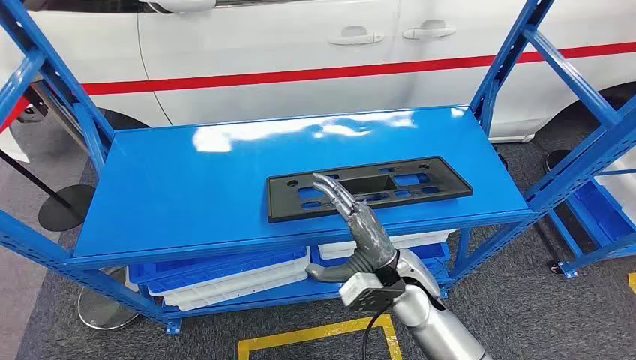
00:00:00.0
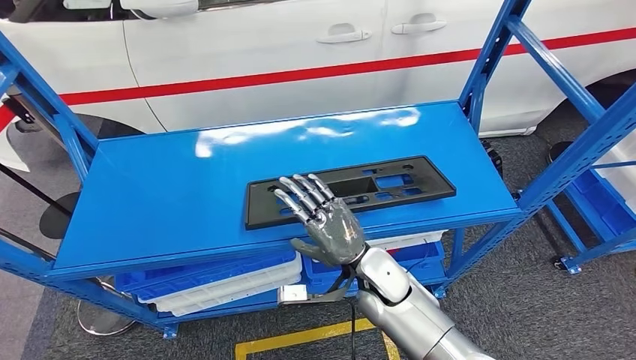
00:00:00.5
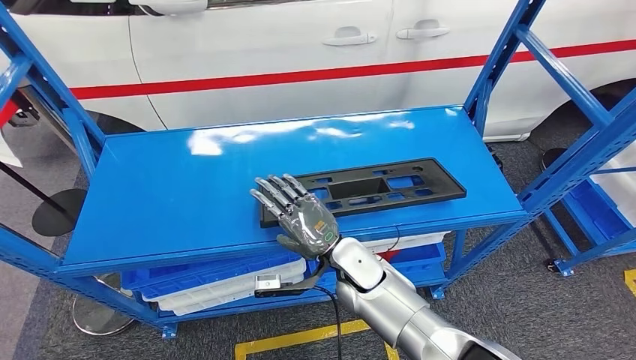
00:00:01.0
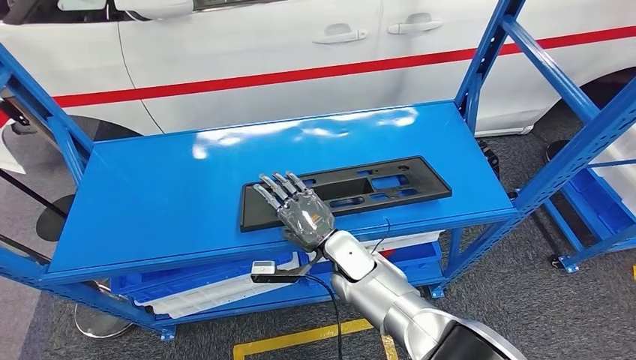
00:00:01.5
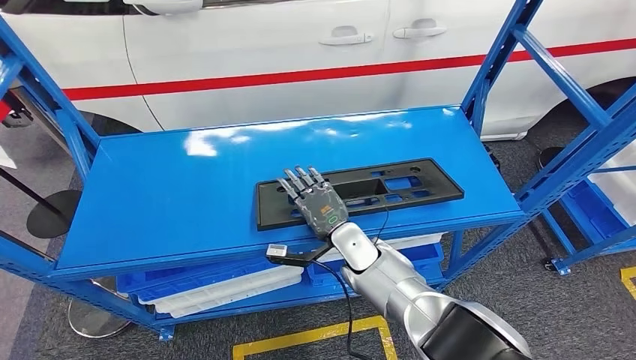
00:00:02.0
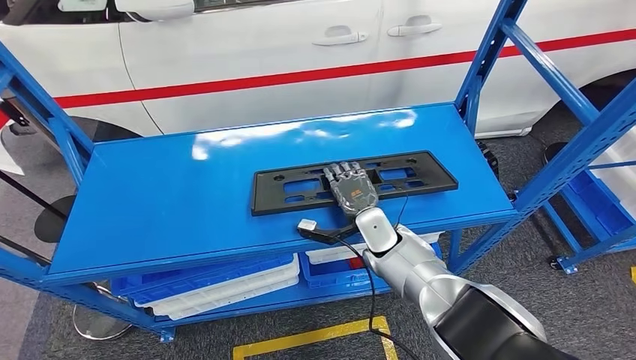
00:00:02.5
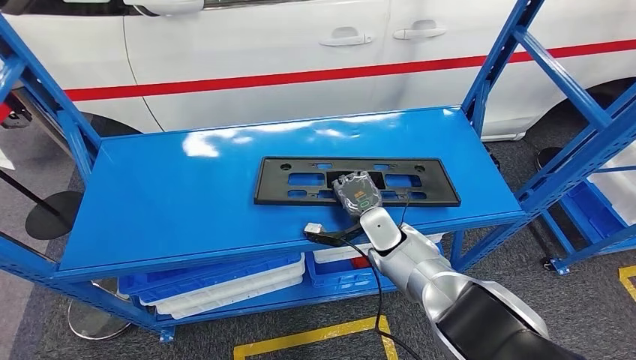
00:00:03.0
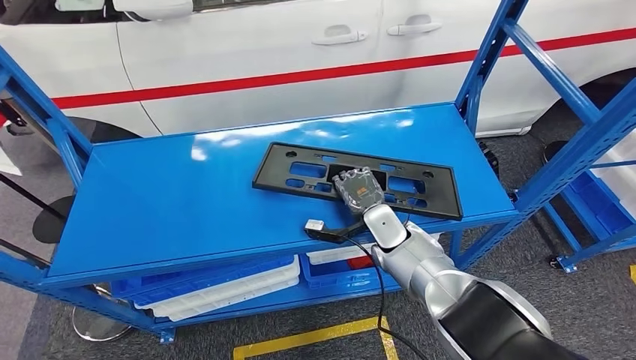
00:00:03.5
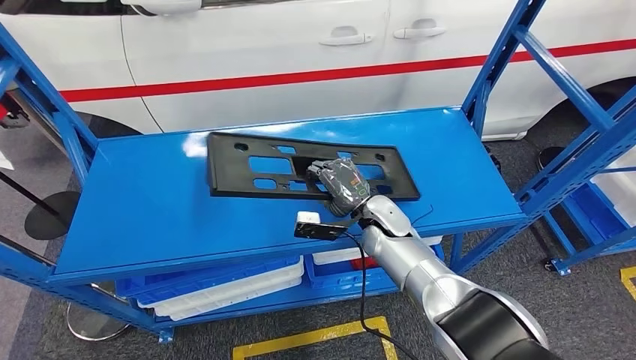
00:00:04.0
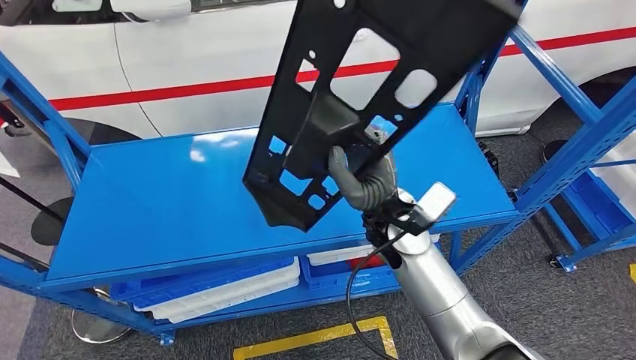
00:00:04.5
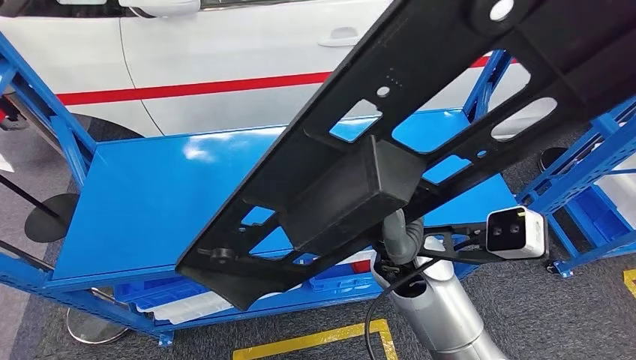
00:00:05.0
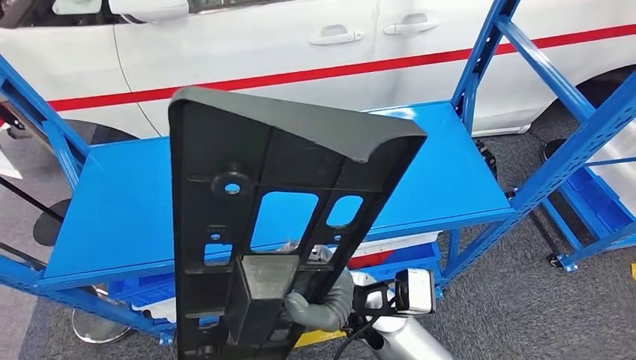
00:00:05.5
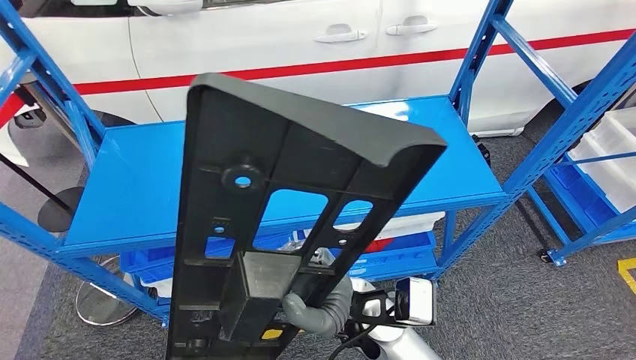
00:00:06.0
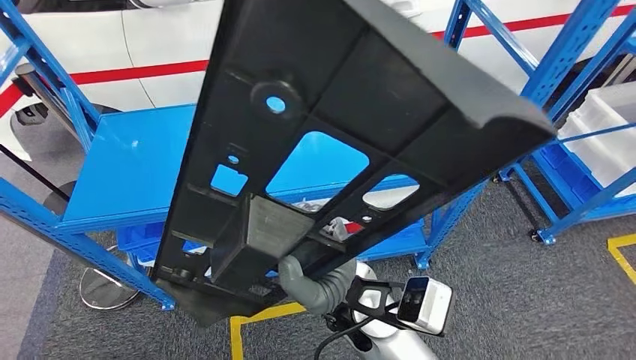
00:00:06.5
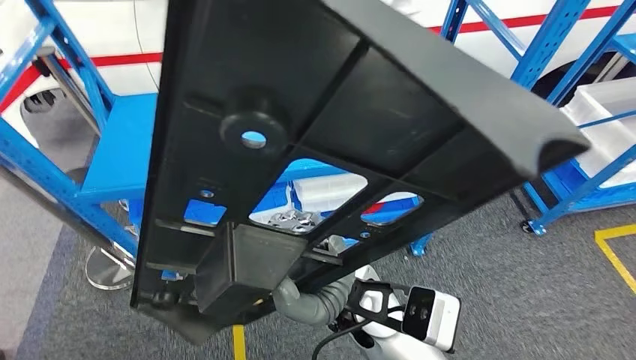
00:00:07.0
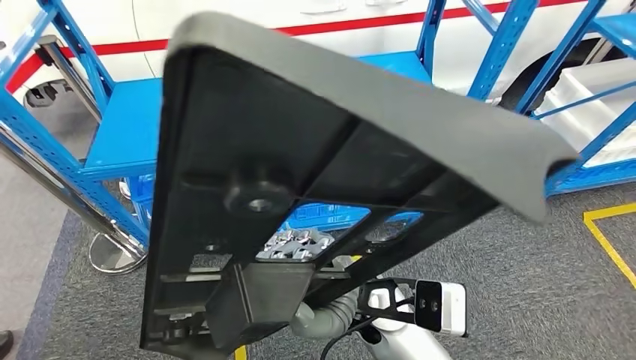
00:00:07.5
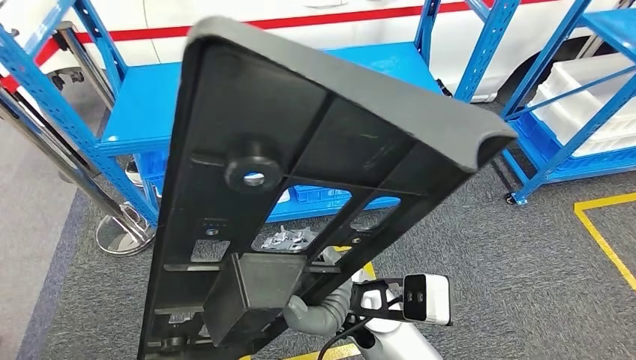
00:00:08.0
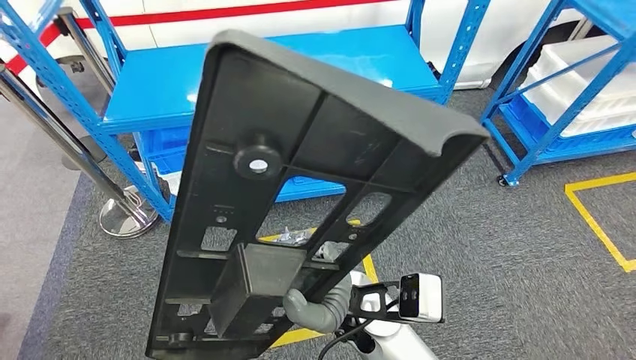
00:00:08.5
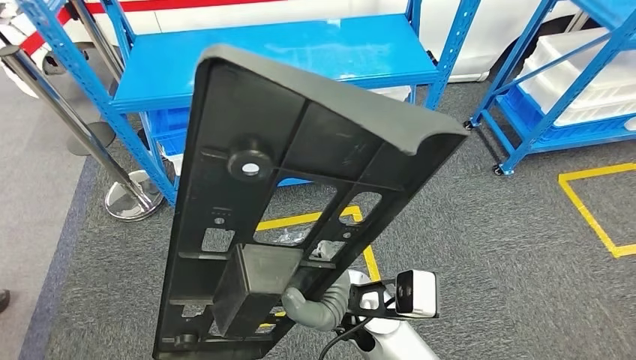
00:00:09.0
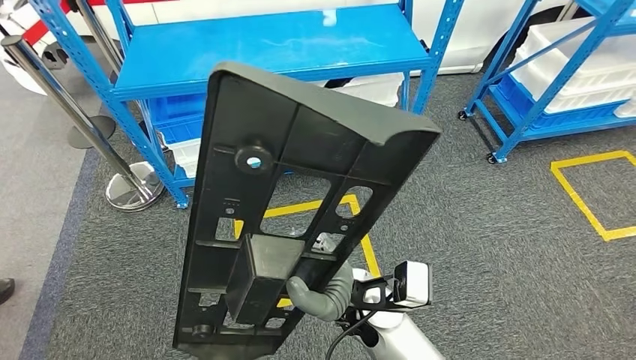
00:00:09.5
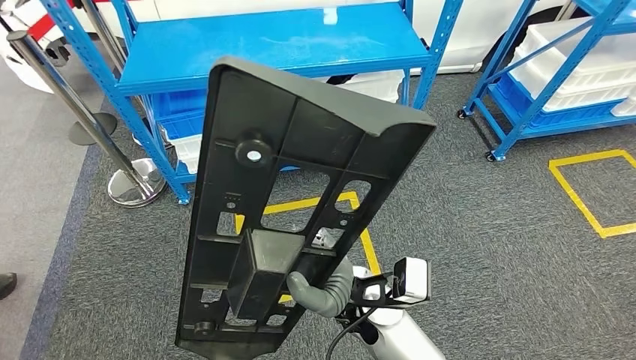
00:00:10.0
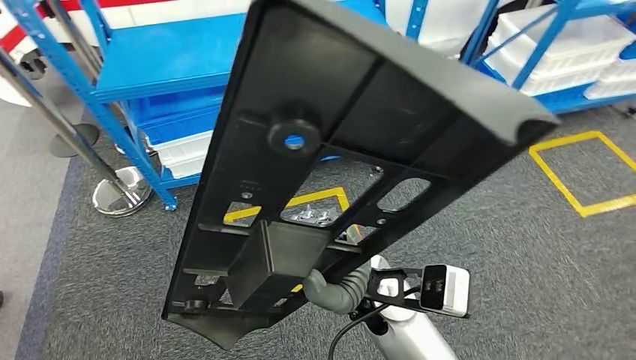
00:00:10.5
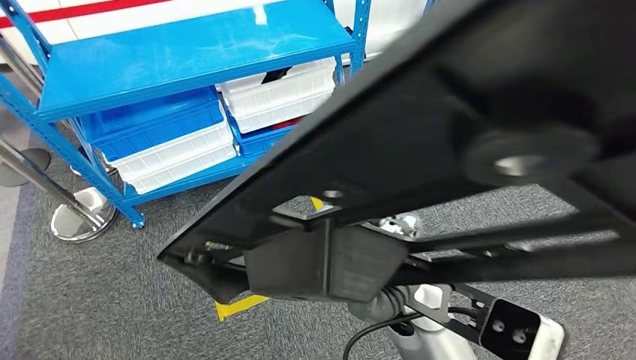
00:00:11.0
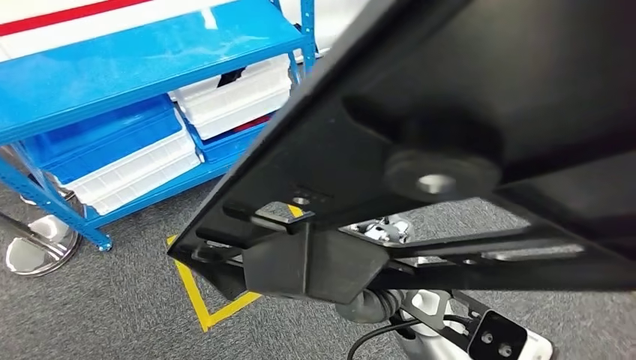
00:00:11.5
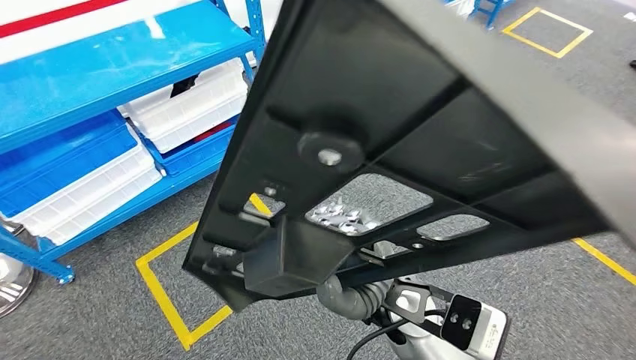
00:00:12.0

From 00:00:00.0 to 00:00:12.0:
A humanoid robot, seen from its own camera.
Step, from 00:00:00.0 to 00:00:05.0: Pick up the large material from the shelf.

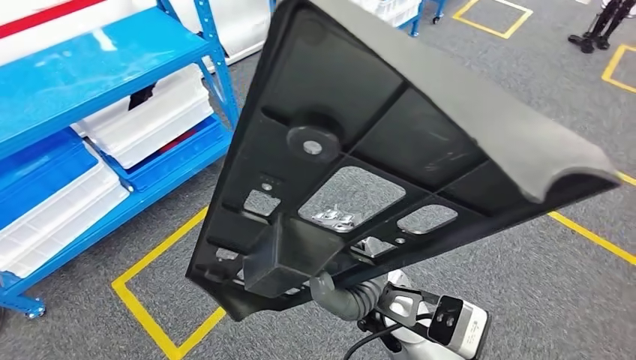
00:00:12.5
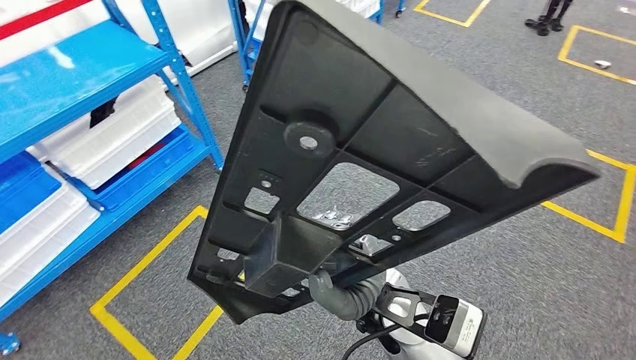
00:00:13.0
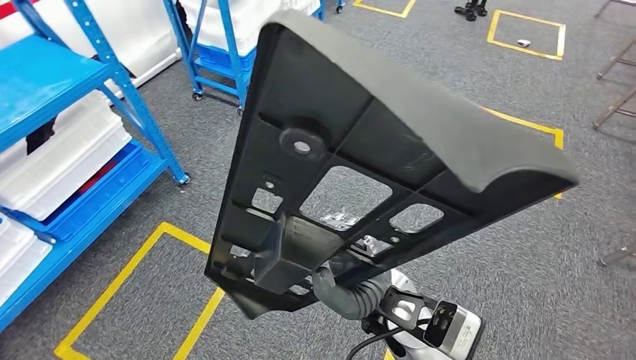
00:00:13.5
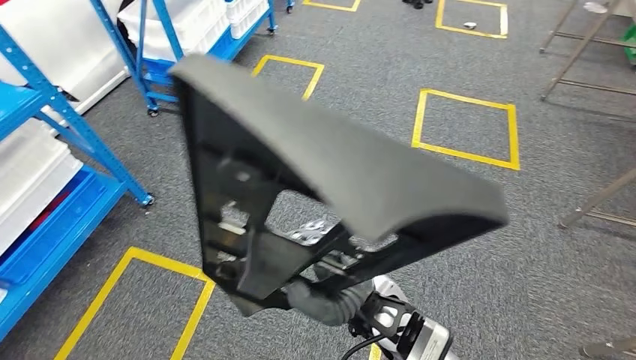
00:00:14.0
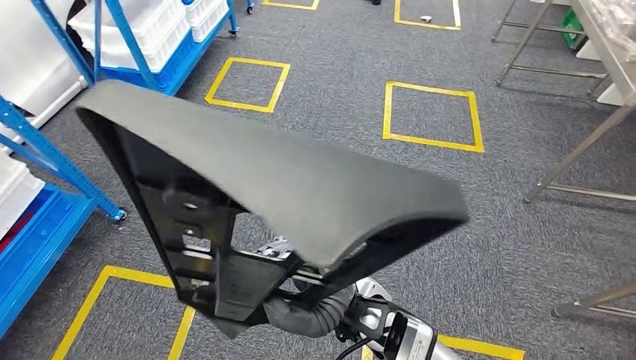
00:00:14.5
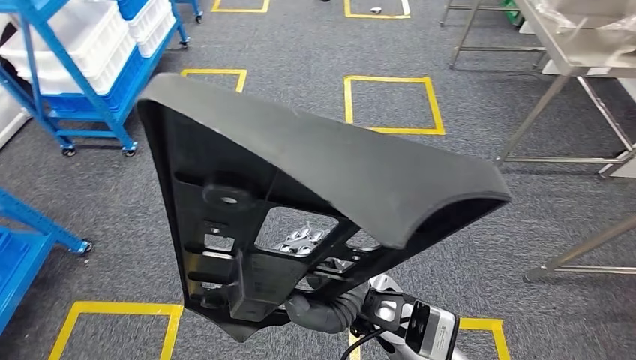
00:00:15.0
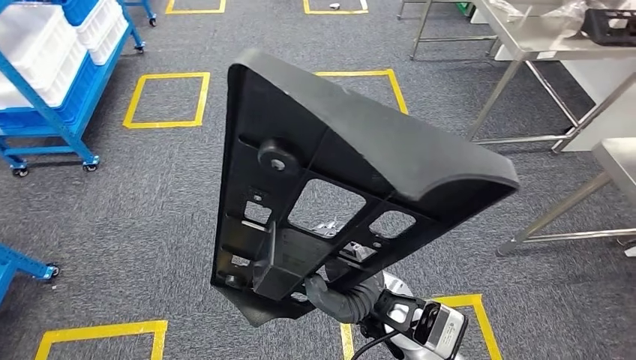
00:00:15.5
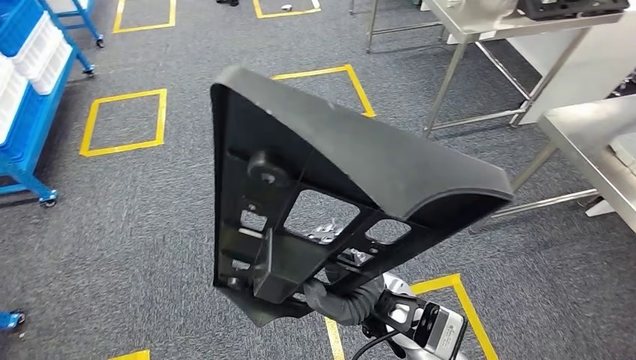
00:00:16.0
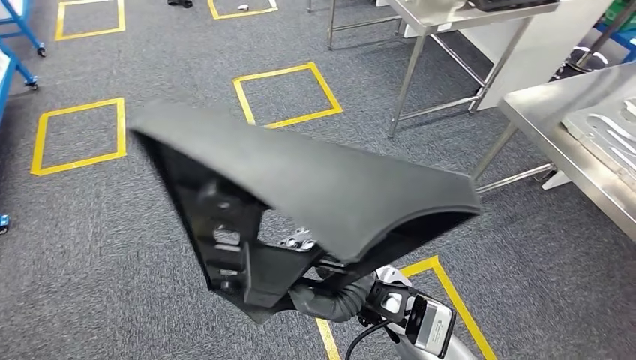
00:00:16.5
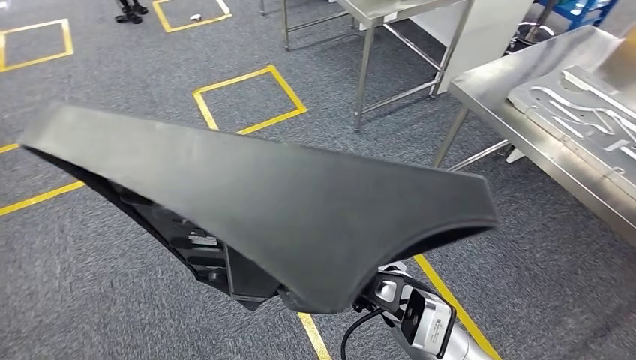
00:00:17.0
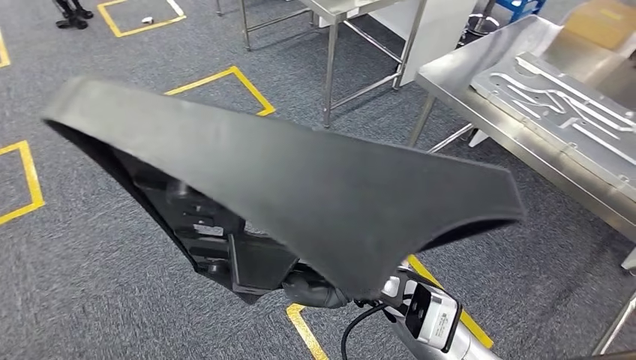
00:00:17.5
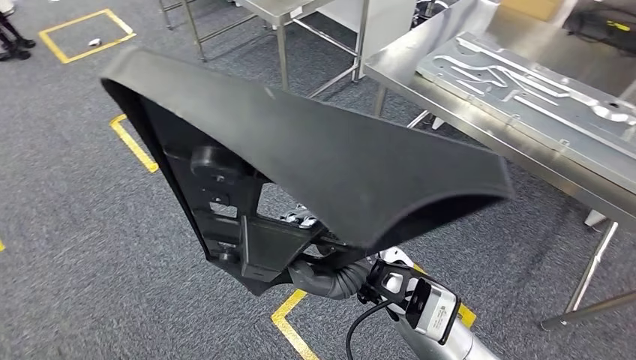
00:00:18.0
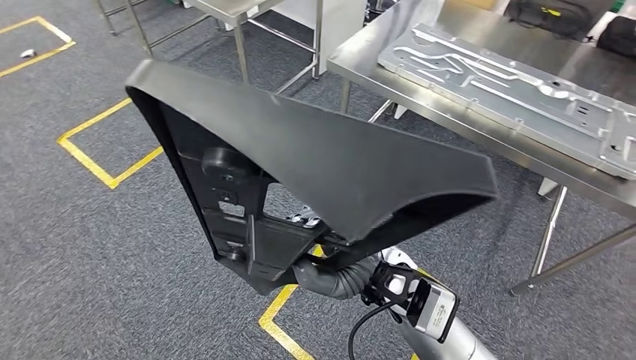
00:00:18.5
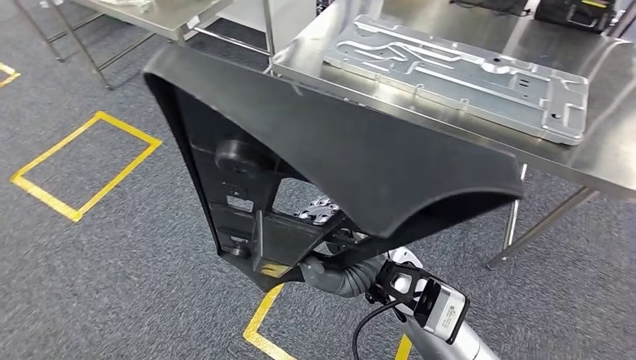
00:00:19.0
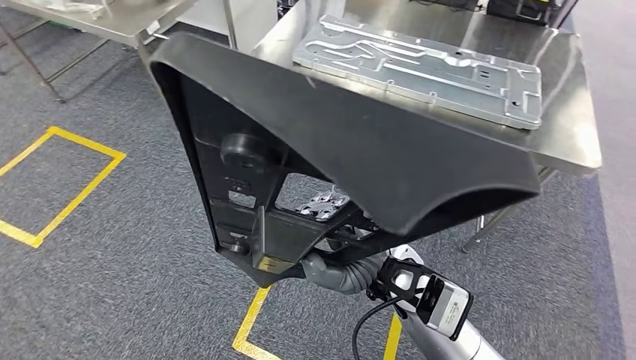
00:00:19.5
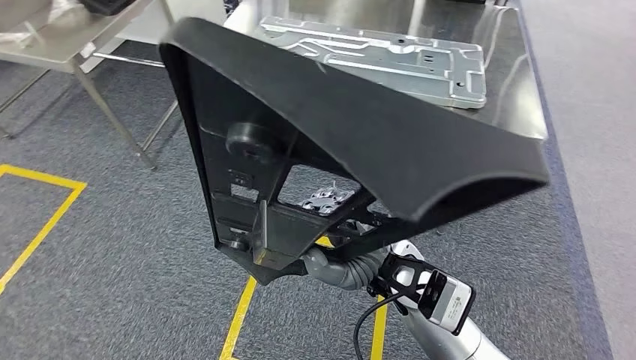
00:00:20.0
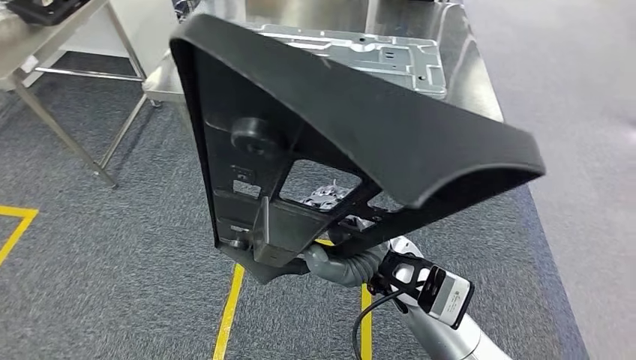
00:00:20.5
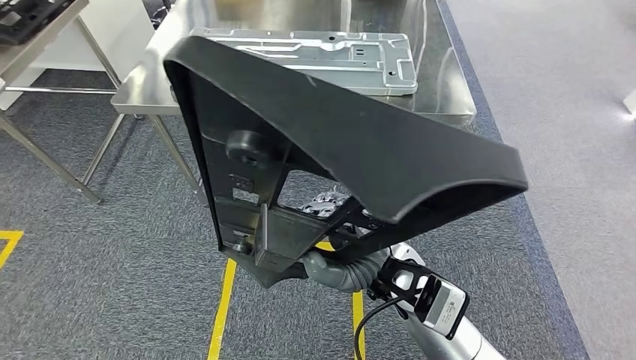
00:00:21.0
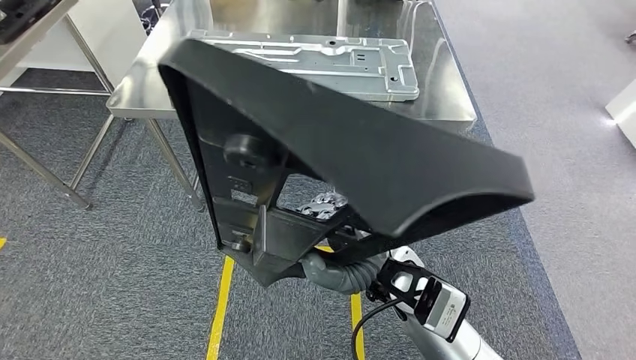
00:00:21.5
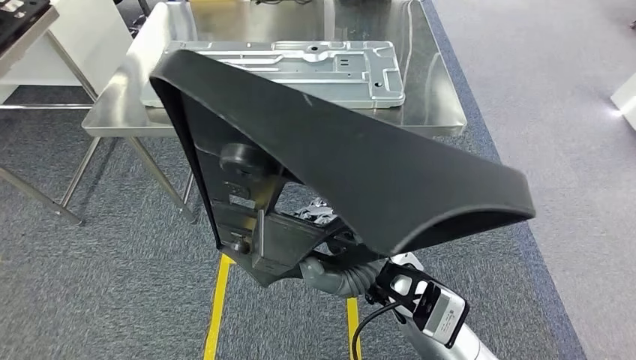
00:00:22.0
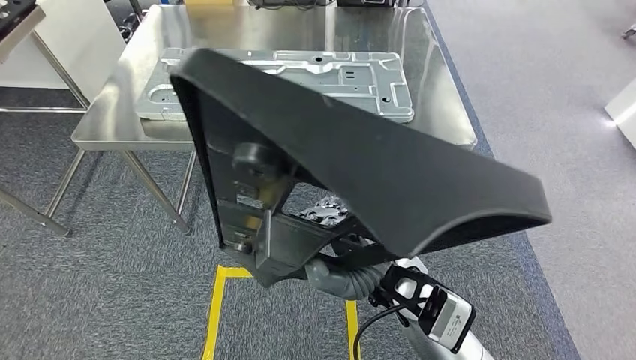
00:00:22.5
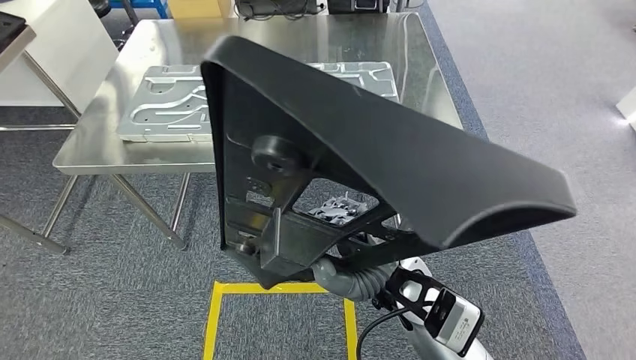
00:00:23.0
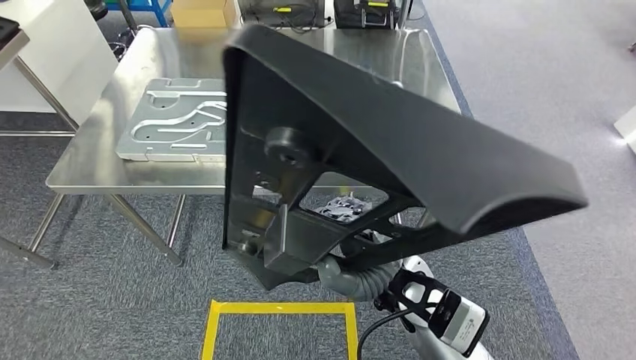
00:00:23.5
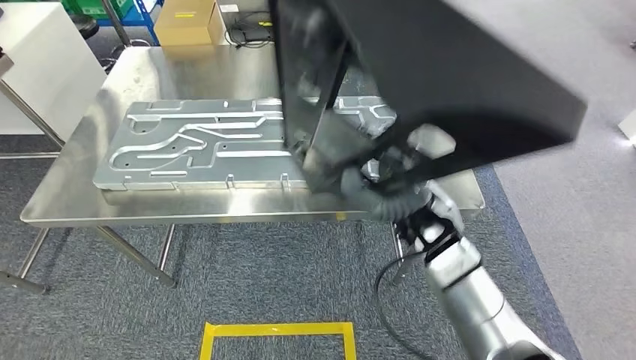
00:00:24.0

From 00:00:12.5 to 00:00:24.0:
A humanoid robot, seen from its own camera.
Step, from 00:00:12.5 to 00:00:23.5: Move the large material to the workbench.
